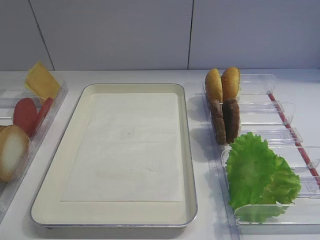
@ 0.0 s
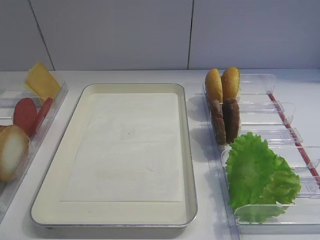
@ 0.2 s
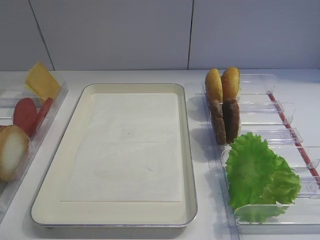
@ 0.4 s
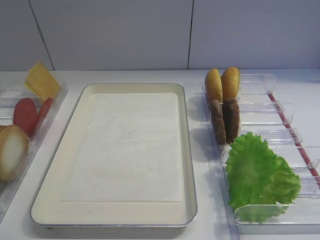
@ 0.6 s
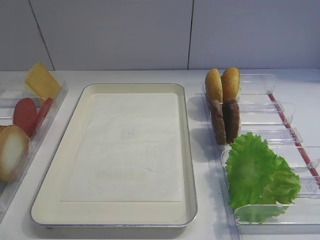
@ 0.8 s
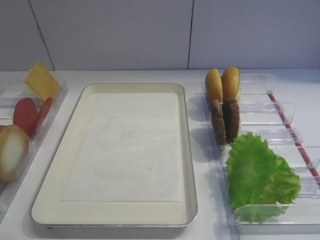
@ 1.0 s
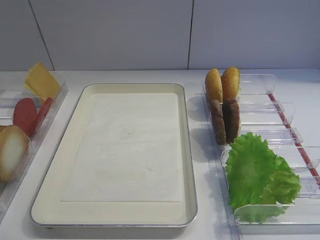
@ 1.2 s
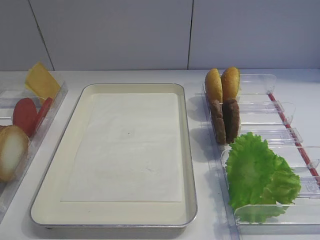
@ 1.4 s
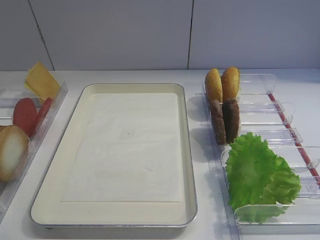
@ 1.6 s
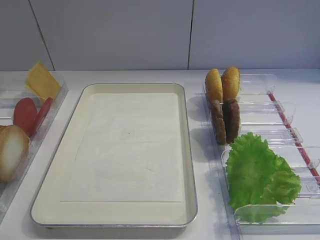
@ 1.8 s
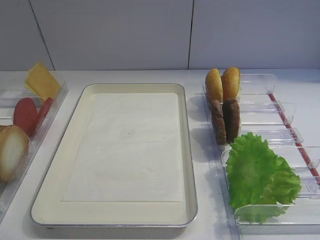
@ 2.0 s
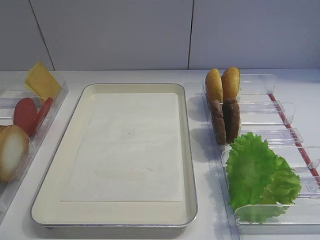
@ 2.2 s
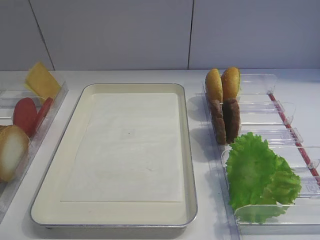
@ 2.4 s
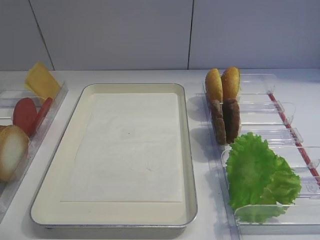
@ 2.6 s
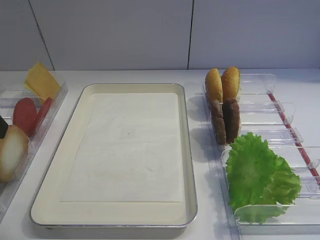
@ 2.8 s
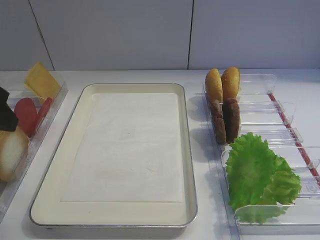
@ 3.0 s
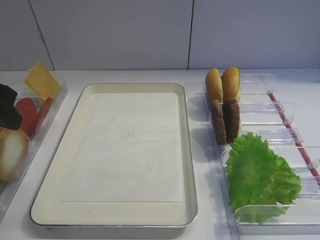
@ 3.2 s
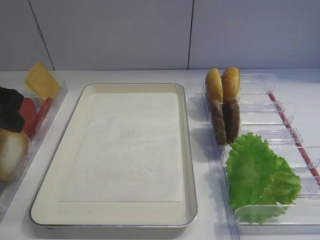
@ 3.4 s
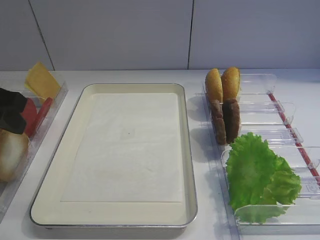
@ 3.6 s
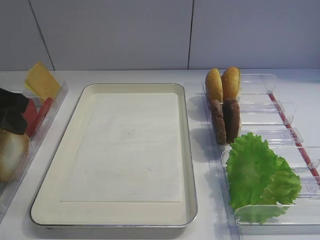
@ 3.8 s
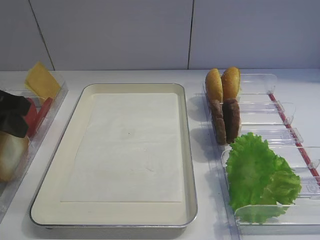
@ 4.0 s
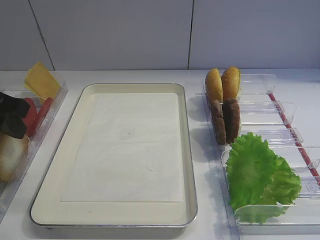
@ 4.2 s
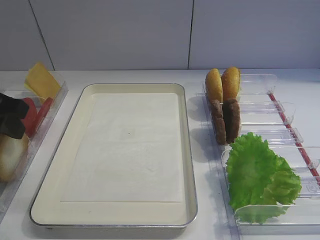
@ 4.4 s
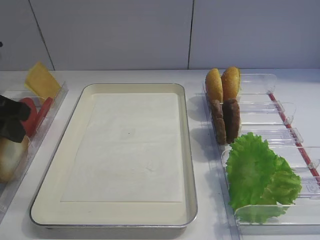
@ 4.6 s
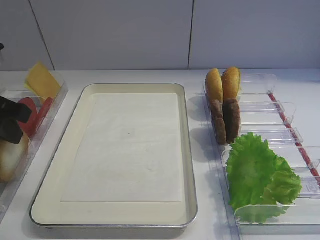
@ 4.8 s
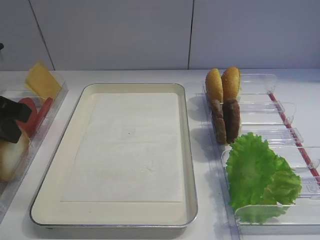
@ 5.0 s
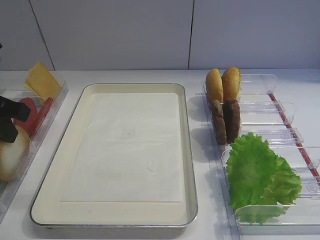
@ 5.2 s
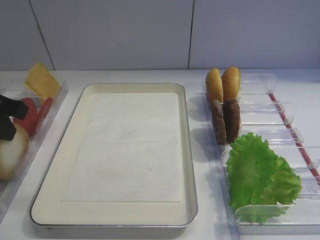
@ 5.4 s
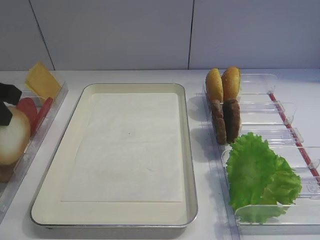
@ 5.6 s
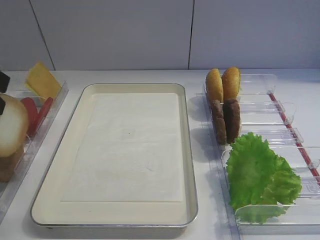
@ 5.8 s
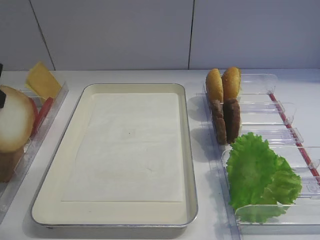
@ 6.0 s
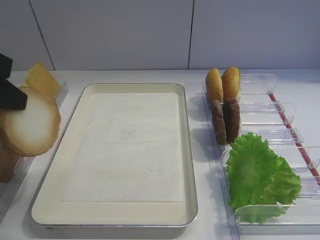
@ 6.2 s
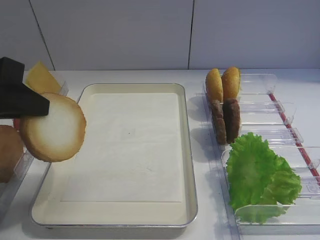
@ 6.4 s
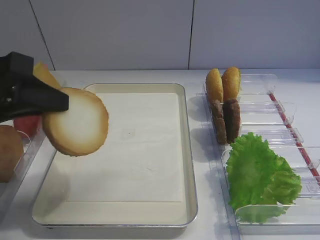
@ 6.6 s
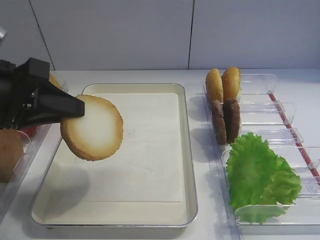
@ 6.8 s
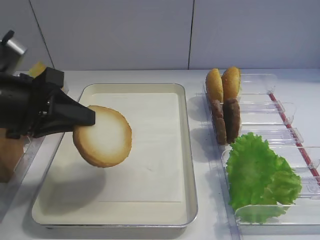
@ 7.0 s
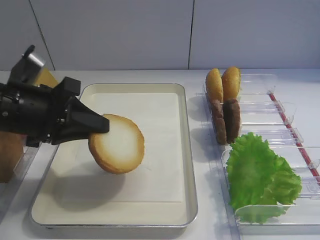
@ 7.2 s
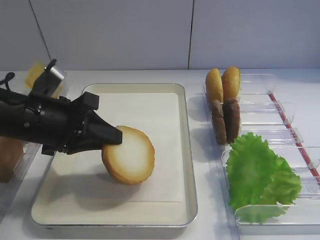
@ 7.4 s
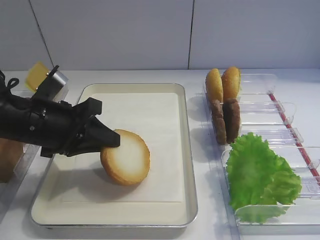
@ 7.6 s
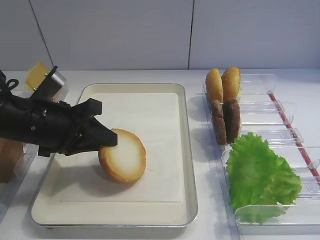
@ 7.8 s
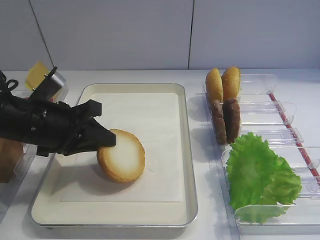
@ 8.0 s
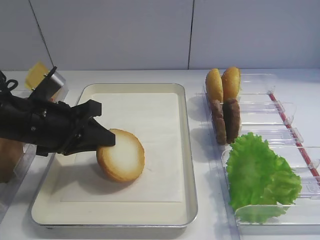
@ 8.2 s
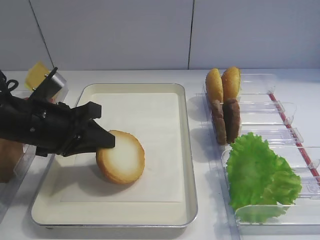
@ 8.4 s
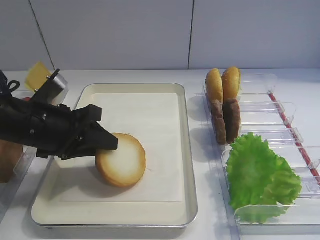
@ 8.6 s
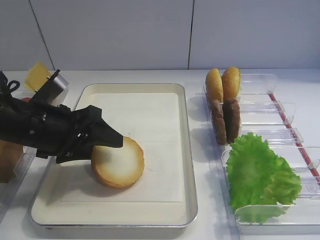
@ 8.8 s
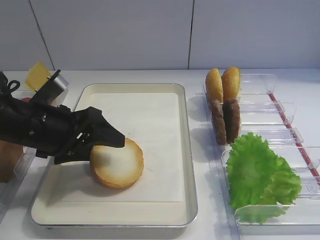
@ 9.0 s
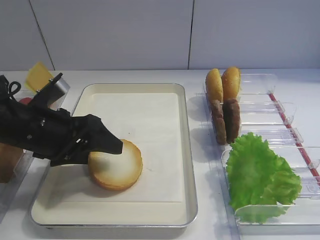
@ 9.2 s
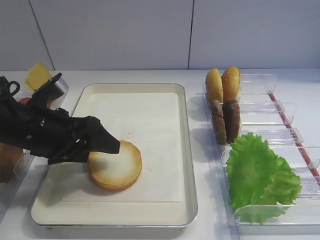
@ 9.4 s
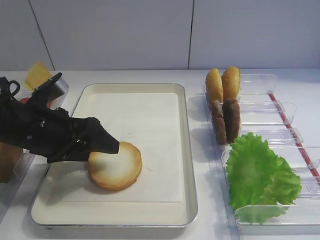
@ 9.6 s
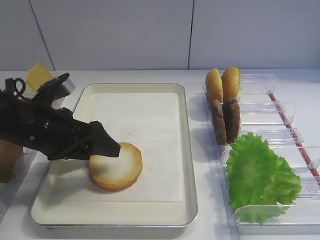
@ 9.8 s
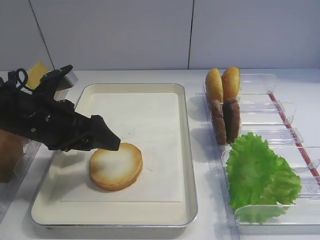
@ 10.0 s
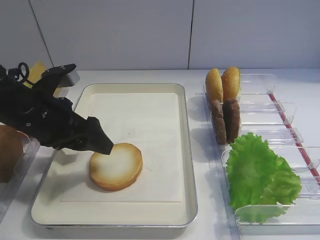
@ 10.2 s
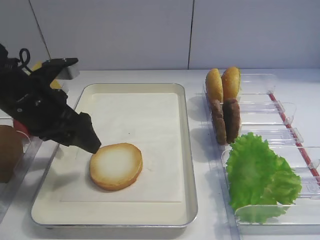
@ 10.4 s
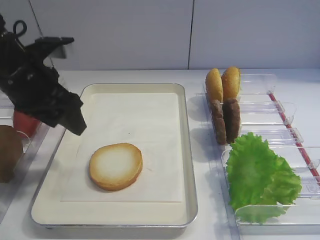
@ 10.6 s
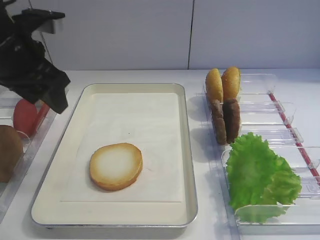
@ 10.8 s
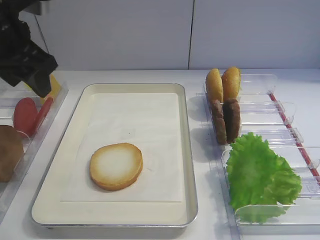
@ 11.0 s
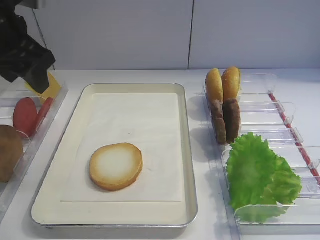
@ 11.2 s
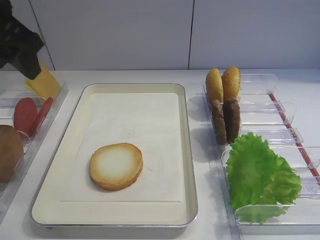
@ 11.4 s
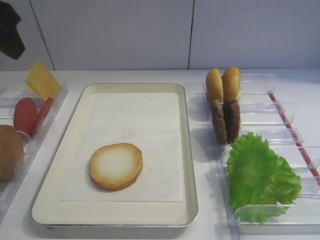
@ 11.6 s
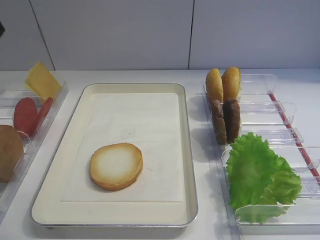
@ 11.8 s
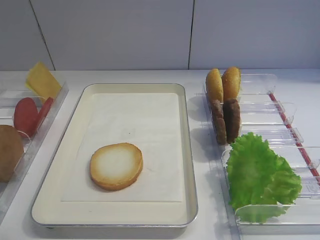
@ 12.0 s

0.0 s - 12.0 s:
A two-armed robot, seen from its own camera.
Step, 0.0 s - 5.8 s: Pick up the bread slice with the left gripper.
Step, 6.0 s - 10.4 s: Place the bread slice on the tray with the left gripper.
1.6 s - 3.0 s: The left gripper goes approximately 20 cm forward.
3.0 s - 4.4 s: The left gripper ends up roughly 5 cm from where it was.
4.4 s - 6.0 s: The left gripper moves upward, approximately 5 cm, and closes up.
6.0 s - 7.6 s: The left gripper is displaced downward, to the right and forward by approximately 15 cm.
7.6 s - 9.0 s: The left gripper opens up.
10.4 s - 12.0 s: The left gripper moves upward and backward, some 25 cm.

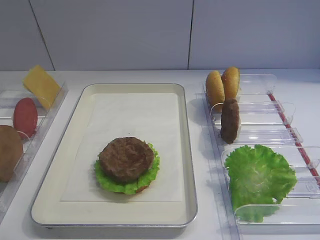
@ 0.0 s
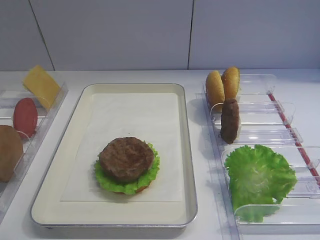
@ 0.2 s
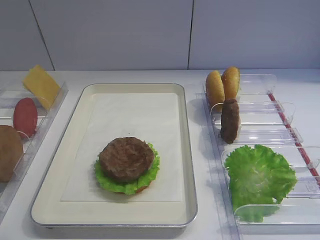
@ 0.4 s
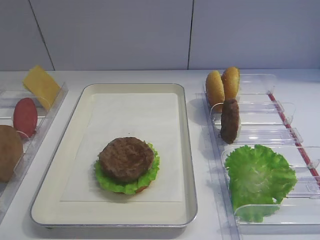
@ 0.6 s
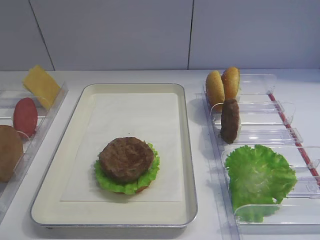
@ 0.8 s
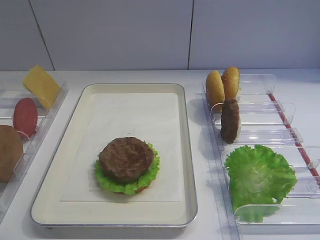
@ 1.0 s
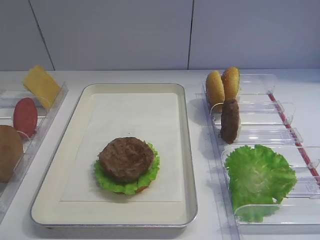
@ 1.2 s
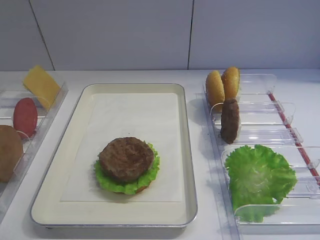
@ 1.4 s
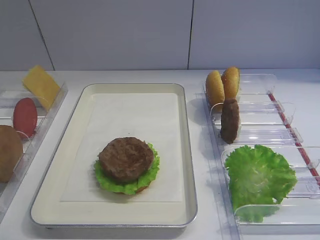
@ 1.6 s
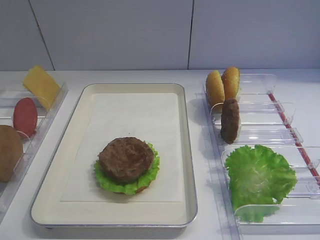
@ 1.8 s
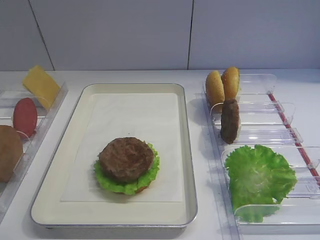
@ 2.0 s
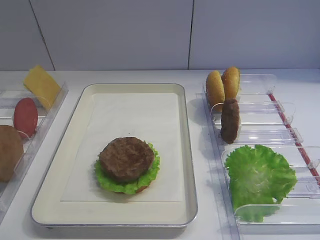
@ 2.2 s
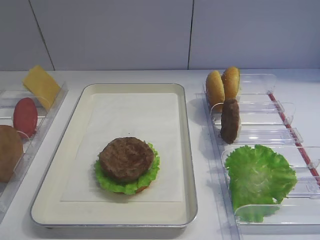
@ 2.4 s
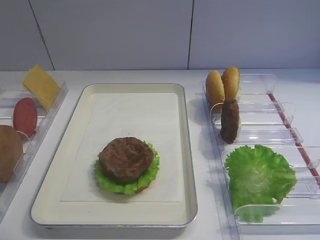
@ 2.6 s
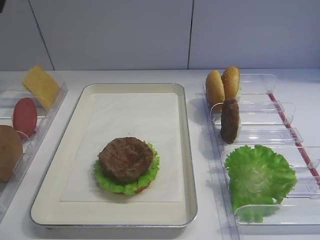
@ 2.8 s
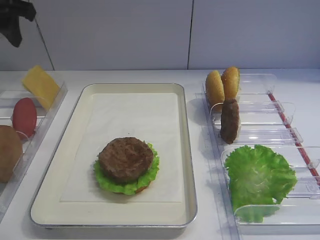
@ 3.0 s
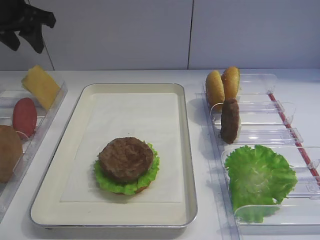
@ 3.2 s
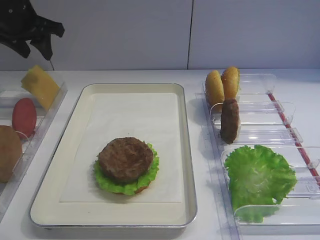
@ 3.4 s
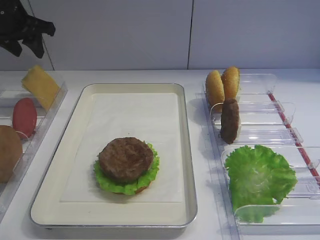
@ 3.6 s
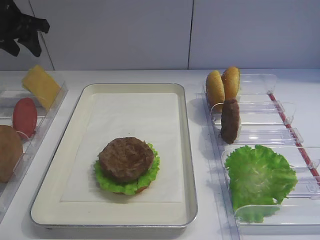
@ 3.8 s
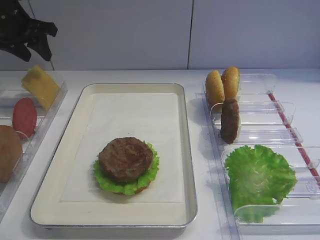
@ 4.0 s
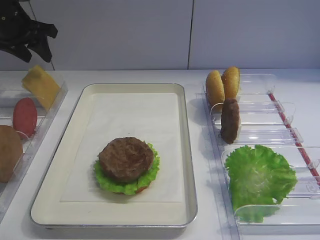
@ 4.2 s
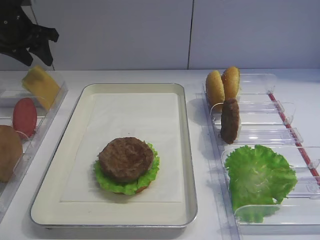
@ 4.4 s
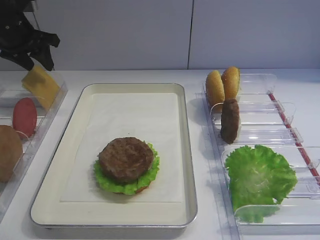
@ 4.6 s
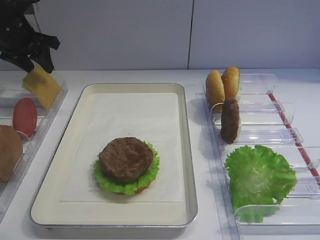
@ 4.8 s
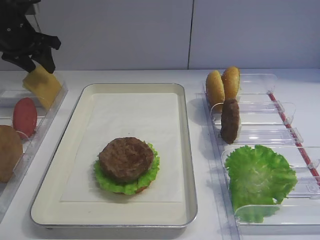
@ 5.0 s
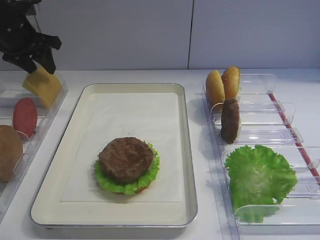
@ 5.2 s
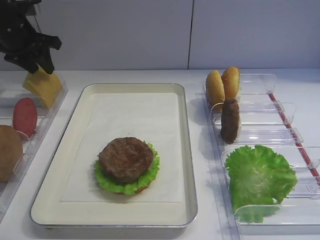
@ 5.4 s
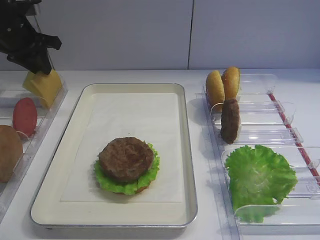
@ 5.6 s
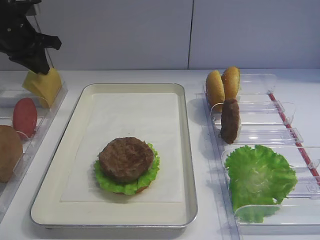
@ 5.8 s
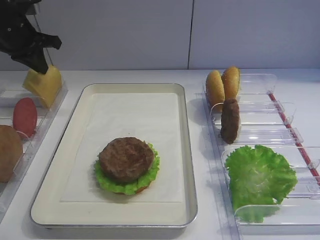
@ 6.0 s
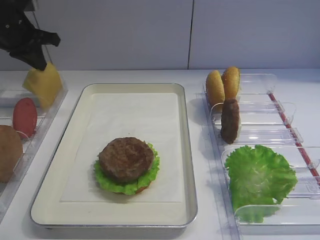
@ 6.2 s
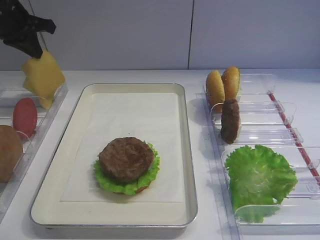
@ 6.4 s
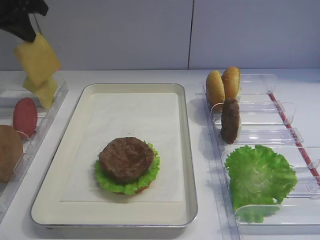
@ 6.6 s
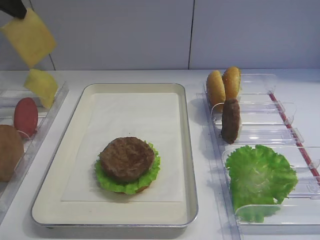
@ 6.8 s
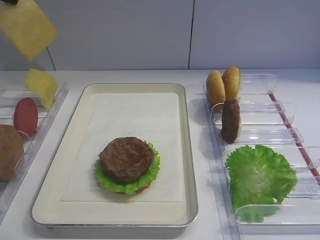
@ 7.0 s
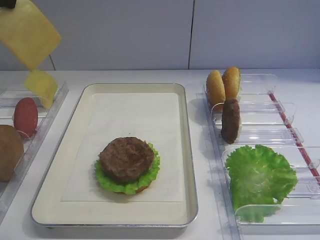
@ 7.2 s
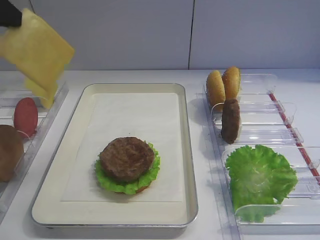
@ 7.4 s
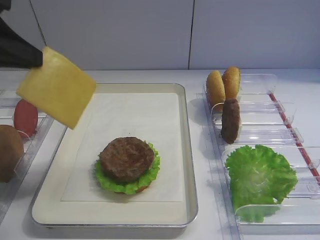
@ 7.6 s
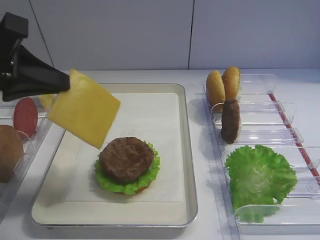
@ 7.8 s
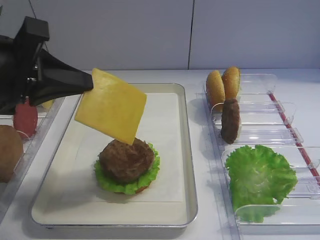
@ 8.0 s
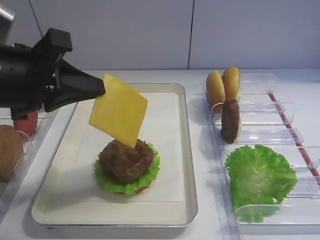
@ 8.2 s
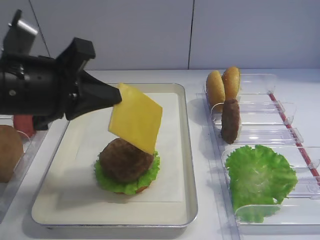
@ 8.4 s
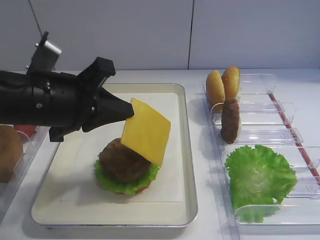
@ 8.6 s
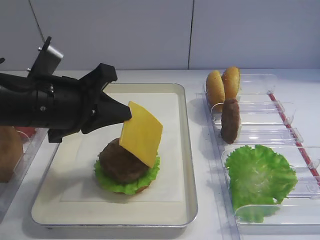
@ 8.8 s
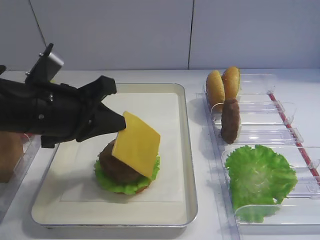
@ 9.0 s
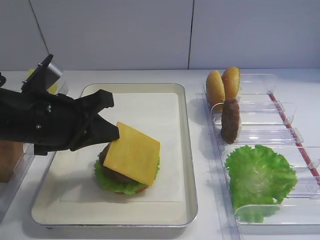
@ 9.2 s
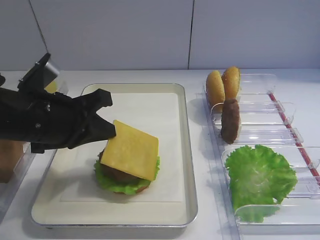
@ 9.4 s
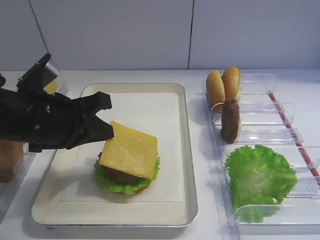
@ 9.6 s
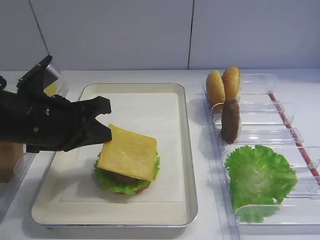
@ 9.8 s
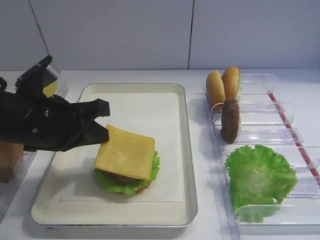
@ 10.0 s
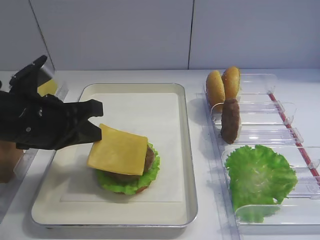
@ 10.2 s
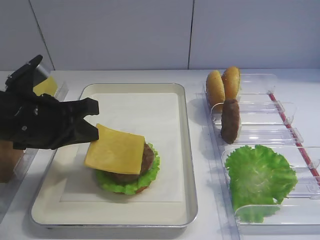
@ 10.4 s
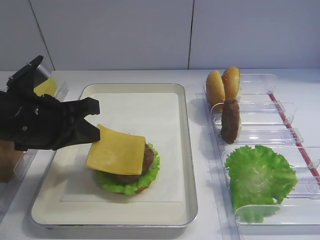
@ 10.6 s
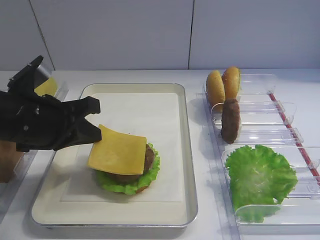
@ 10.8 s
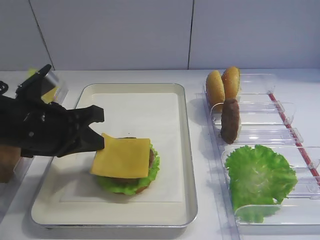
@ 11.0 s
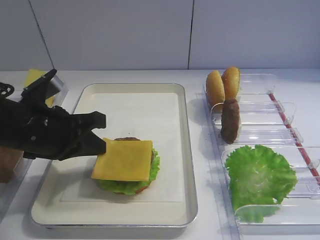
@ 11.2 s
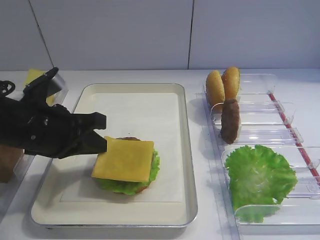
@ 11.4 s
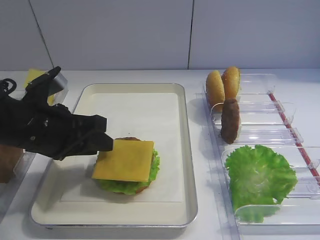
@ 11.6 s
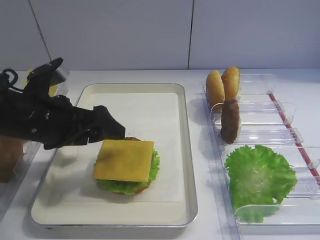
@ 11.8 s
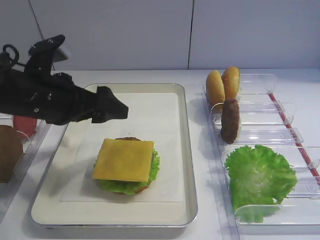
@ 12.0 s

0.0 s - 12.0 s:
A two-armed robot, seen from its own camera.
Step, 0.0 s - 6.4 s: Pick up the cheese slice with the left gripper.
Step, 6.6 s - 11.8 s: Place the cheese slice on the cutlet with the left gripper.
1.6 s - 3.0 s: The left gripper moves forward, some 35 cm.
3.0 s - 4.4 s: The left gripper shifts approximately 15 cm forward and downward.
4.4 s - 6.0 s: The left gripper closes.
6.0 s - 7.6 s: The left gripper is displaced backward by roughly 25 cm.
7.6 s - 9.0 s: The left gripper travels downward and to the right by roughly 15 cm.
9.0 s - 10.4 s: The grippers make only small movements.
10.4 s - 12.0 s: The left gripper opens its fingers.
